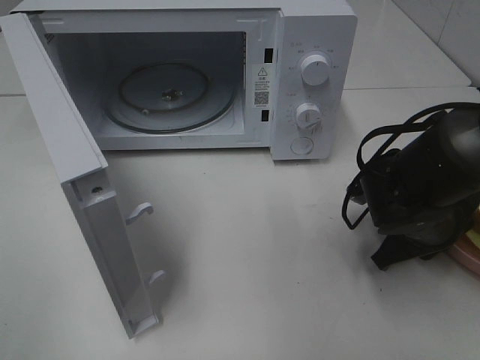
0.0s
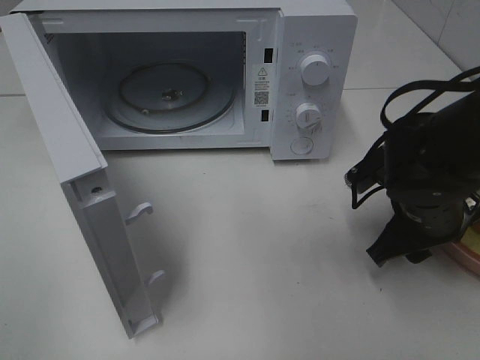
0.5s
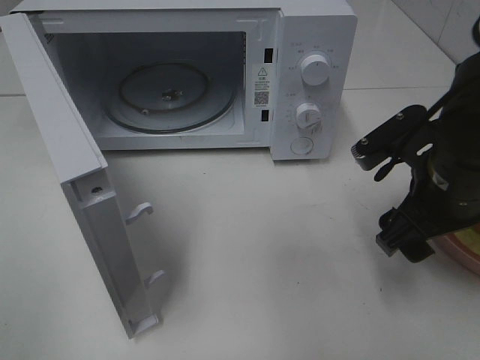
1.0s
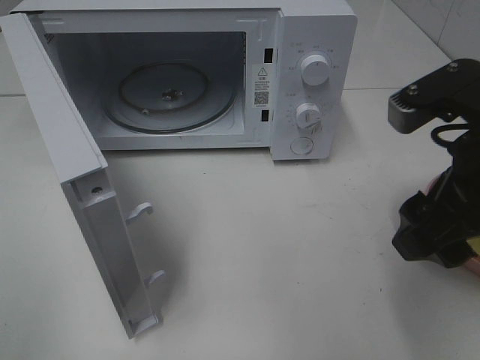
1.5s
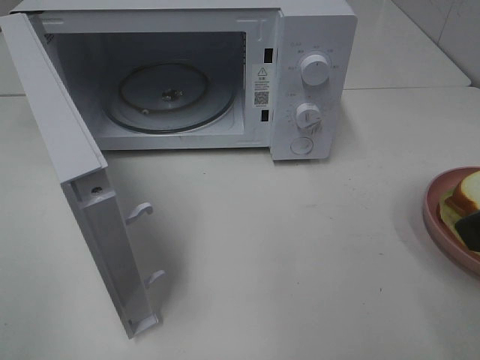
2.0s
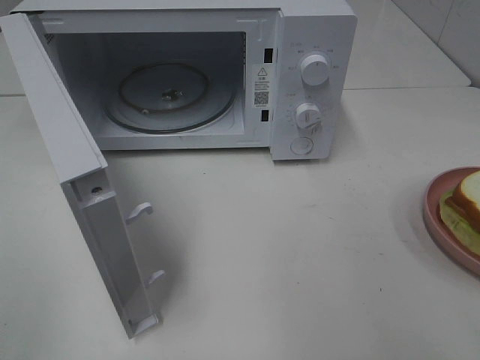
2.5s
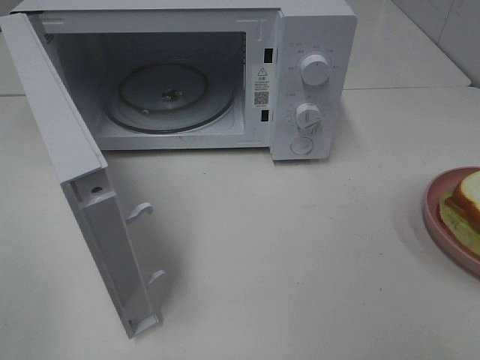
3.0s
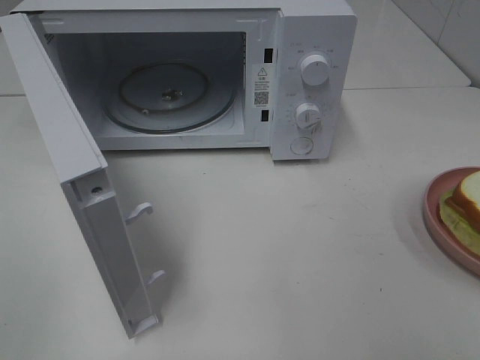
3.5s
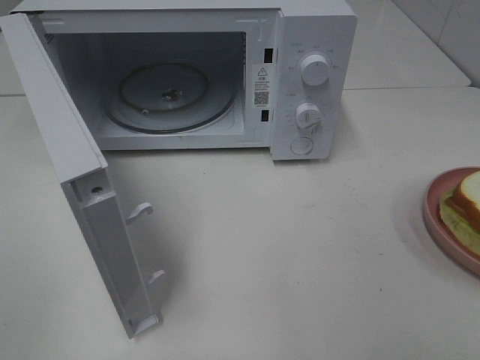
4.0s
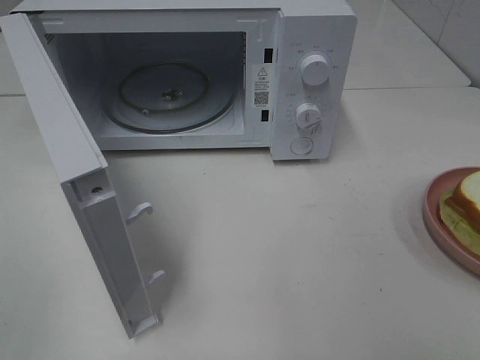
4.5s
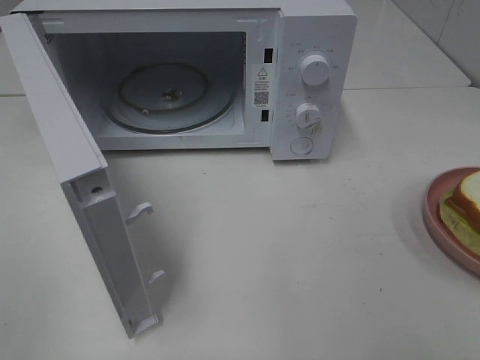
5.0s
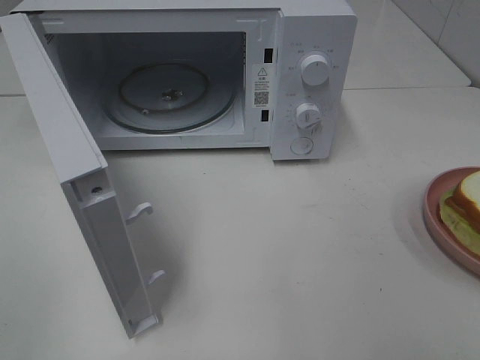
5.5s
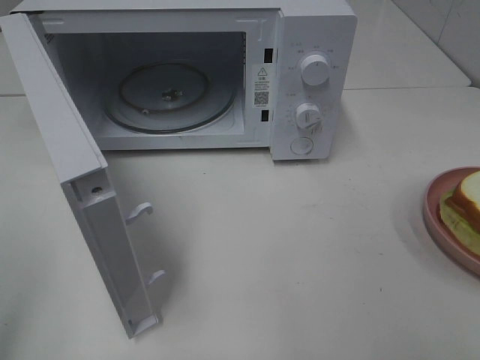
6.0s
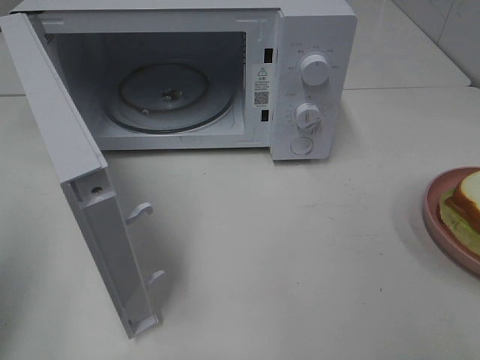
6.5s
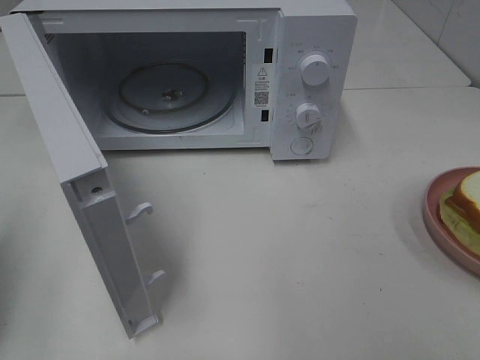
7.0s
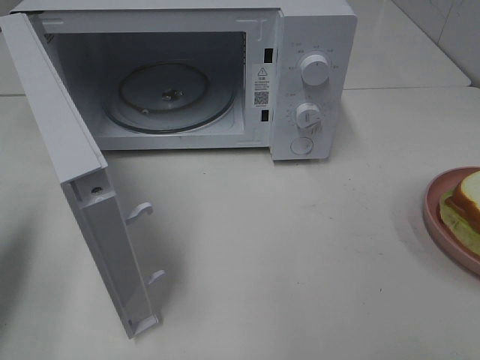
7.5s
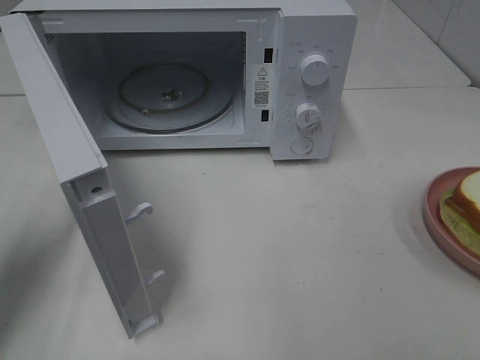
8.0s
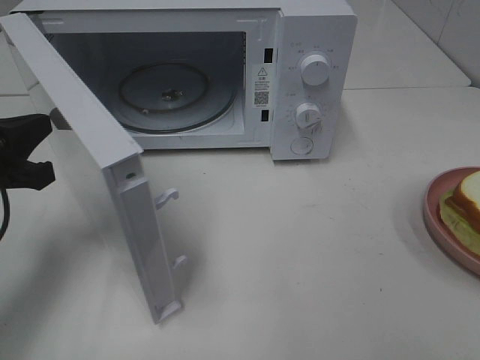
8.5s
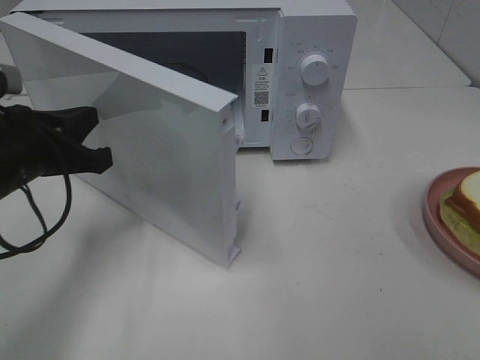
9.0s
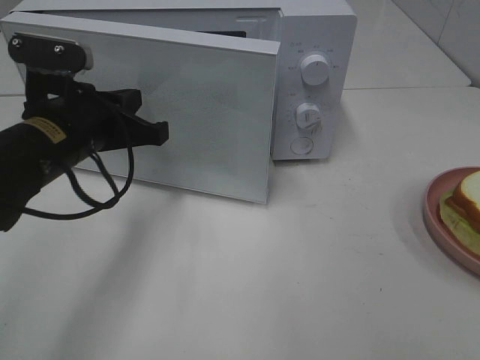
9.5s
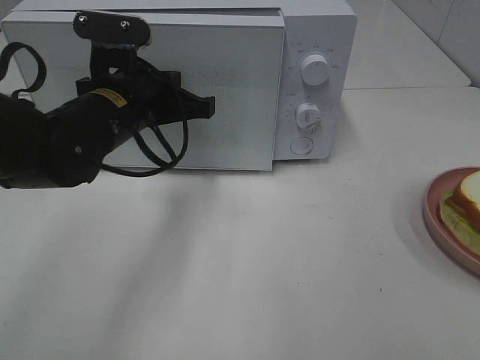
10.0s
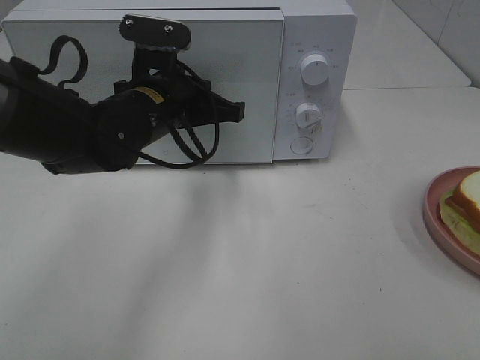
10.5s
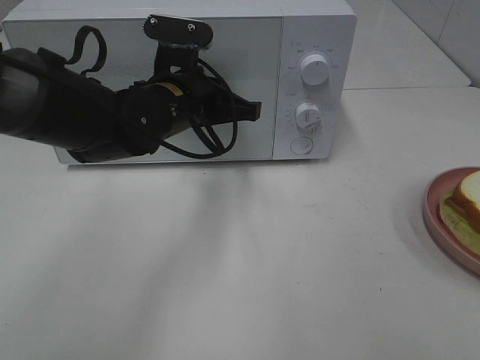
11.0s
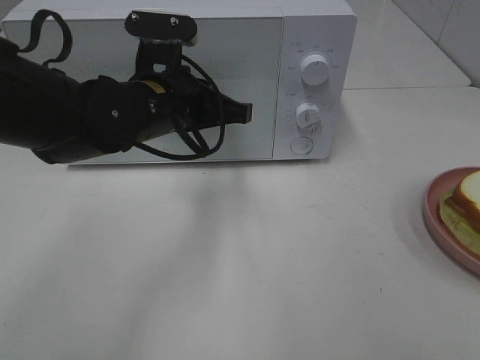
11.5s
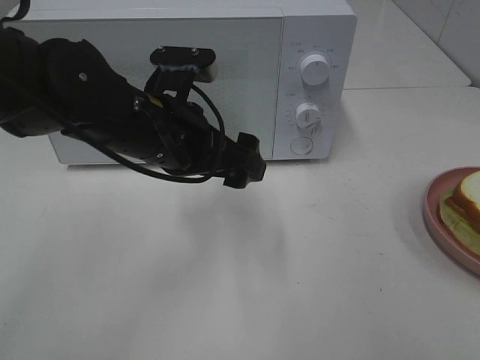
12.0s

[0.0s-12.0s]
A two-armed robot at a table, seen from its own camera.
Task of the whole recording: Heat Sandwich.
Step, 1.5s to 11.5s: Left hand: close the microwave door.
0.0s to 2.0s: The right gripper travels upward and backward by approximately 25 cm, and opens its fingers.
2.0s to 4.0s: The right gripper heads backward and to the right, covering approximately 15 cm.
6.0s to 8.0s: The left gripper travels forward and downward by approximately 20 cm, and closes up.
8.0s to 10.0s: The left gripper is displaced to the right and forward by approximately 20 cm.
10.0s to 12.0s: The left gripper ends up about 5 cm from where it was, and opens up.

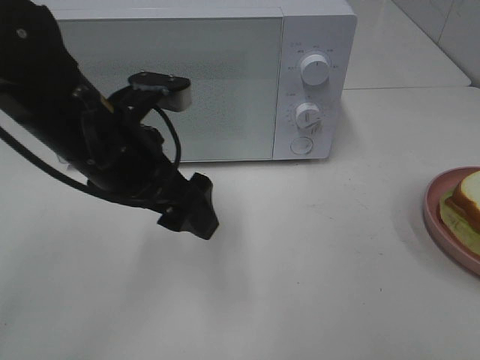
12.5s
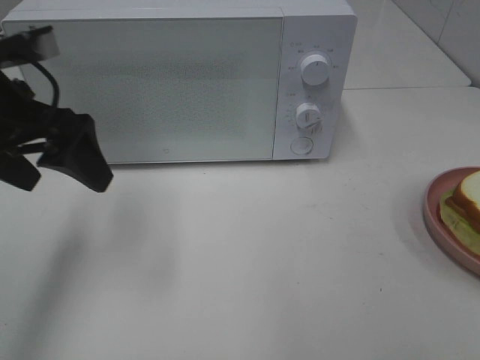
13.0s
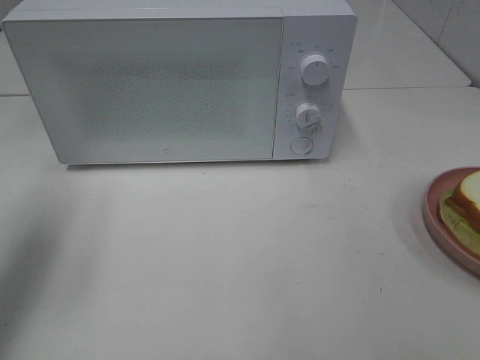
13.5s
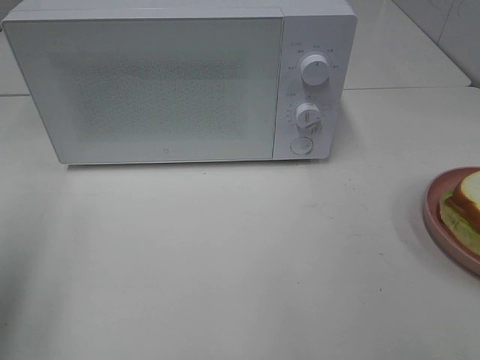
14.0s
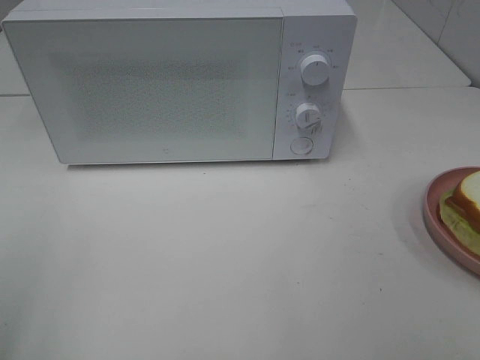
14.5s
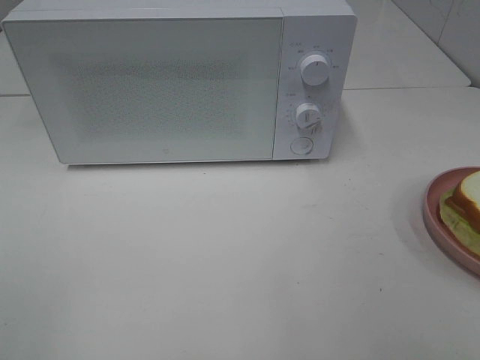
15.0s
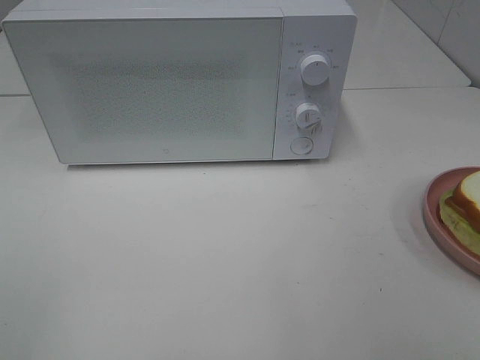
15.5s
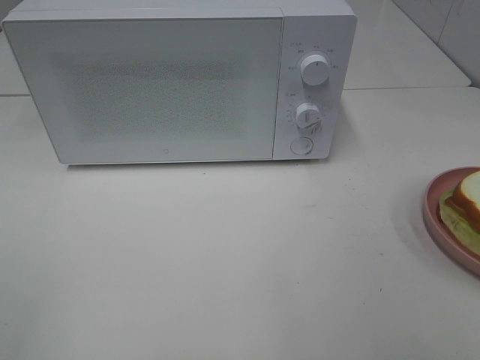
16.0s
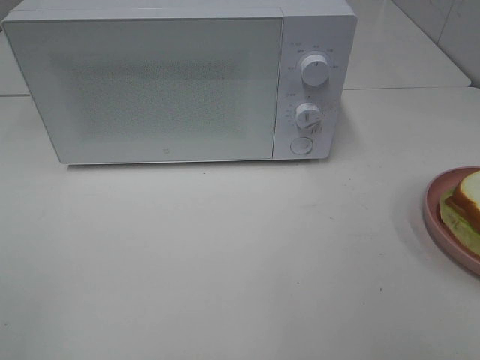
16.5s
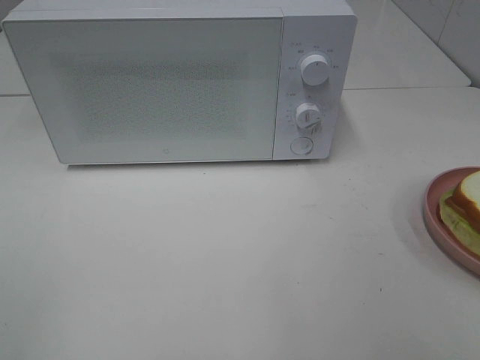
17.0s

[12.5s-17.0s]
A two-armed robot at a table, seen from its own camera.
Task of the whole recording: Heat Sandwich.
12.5s to 14.5s: The left gripper travels backward, to the left and upward by approximately 30 cm.

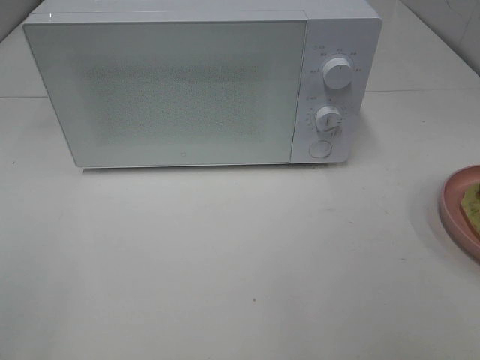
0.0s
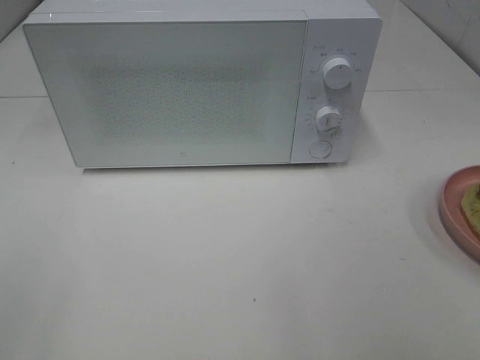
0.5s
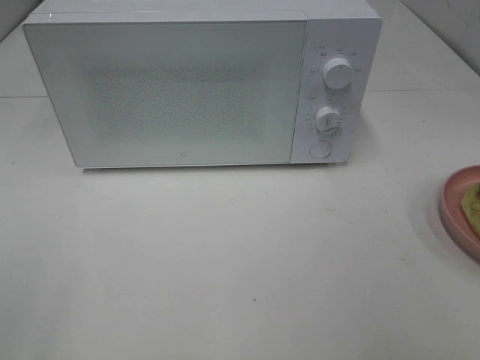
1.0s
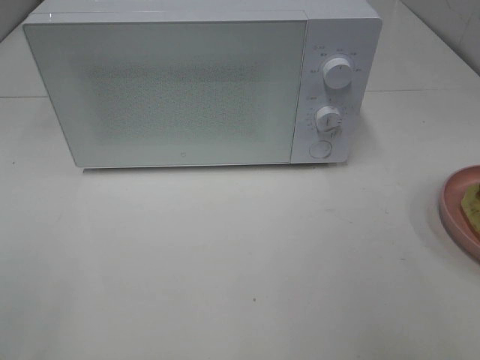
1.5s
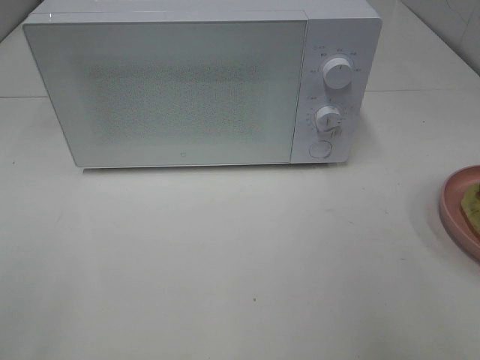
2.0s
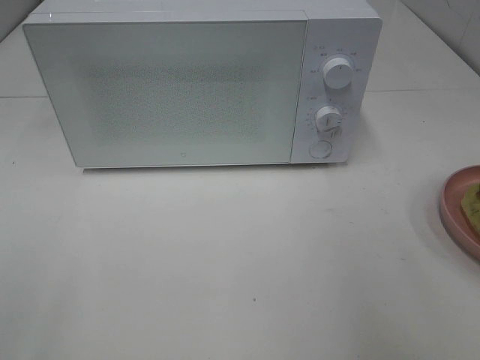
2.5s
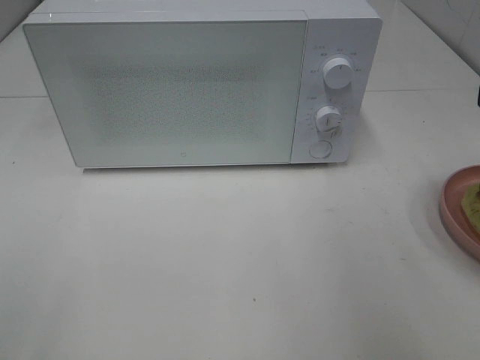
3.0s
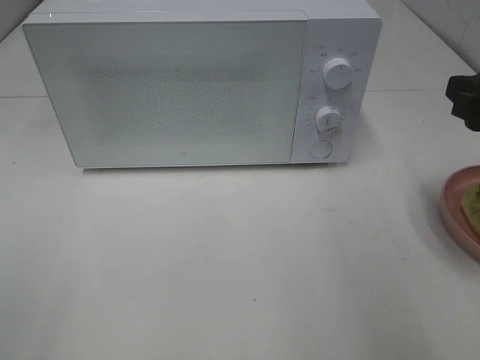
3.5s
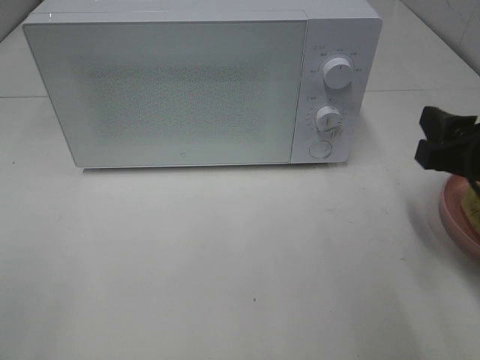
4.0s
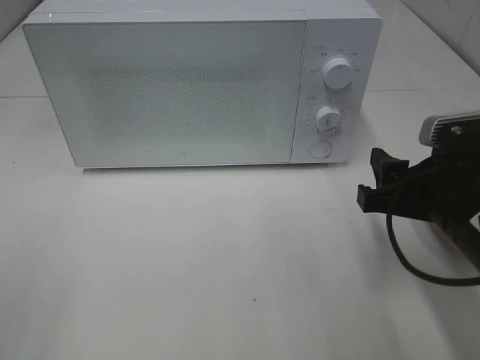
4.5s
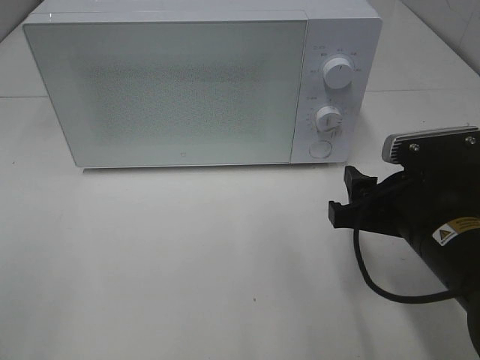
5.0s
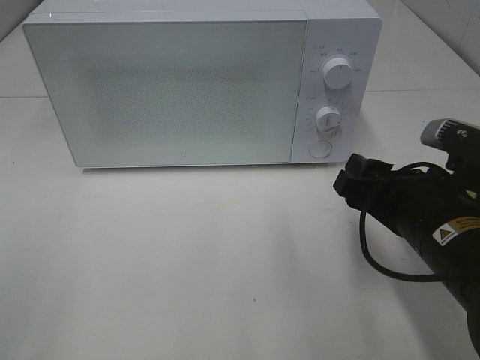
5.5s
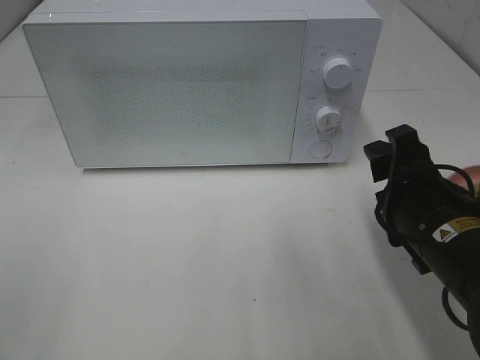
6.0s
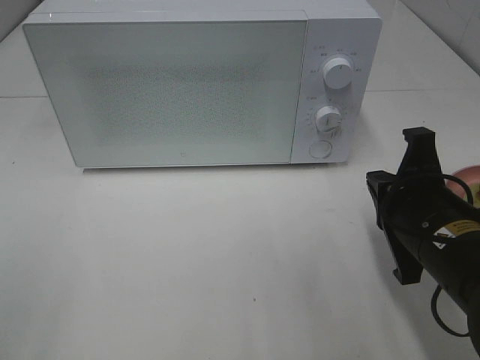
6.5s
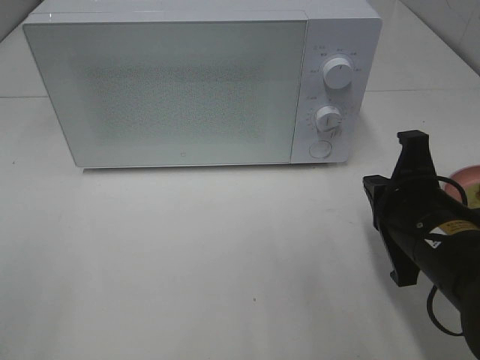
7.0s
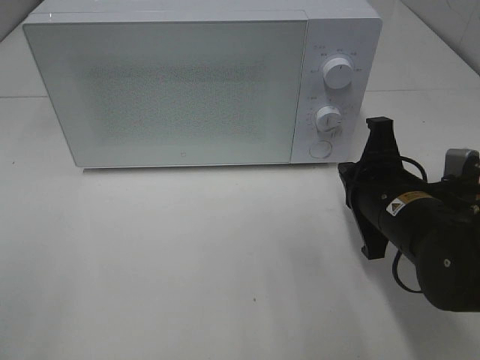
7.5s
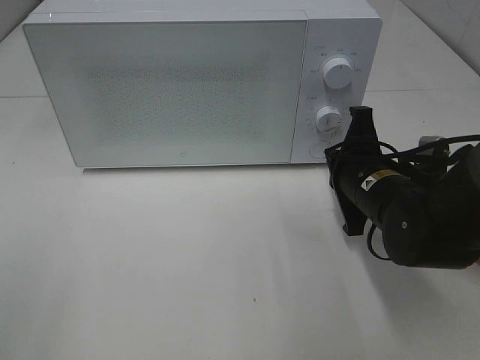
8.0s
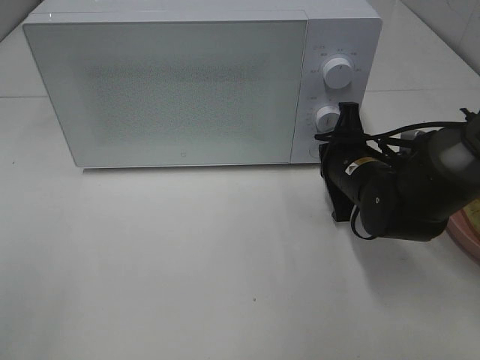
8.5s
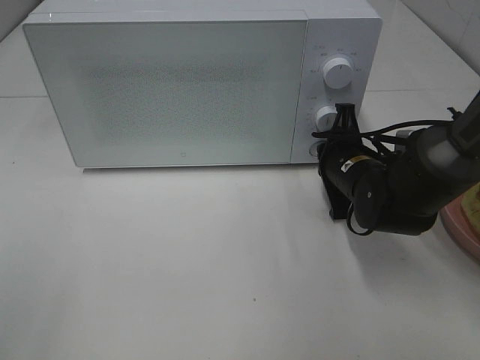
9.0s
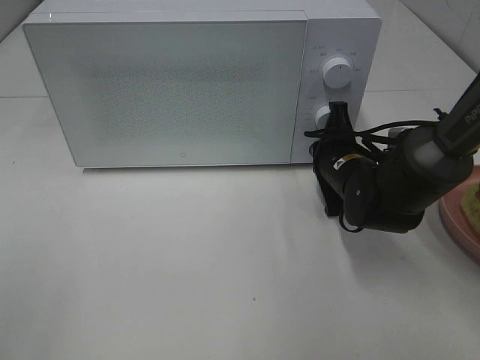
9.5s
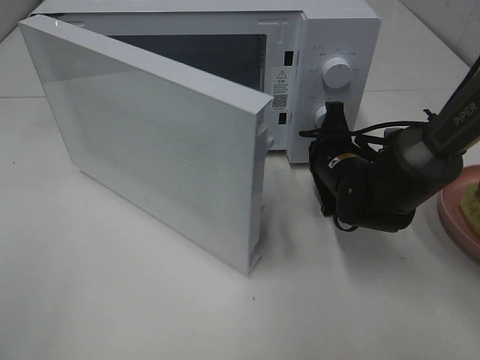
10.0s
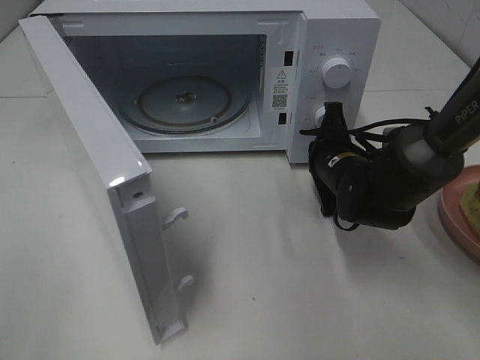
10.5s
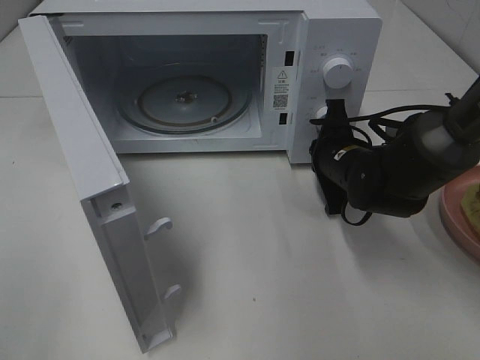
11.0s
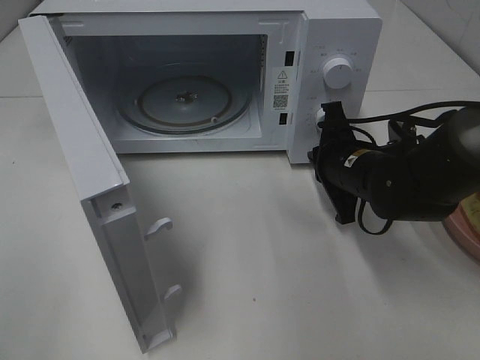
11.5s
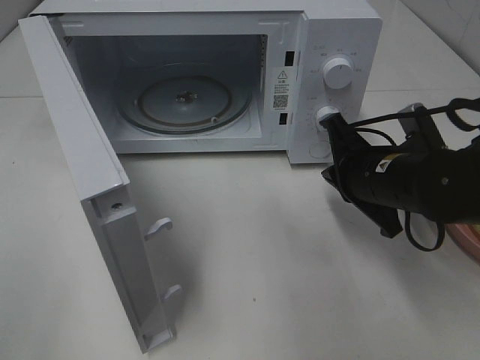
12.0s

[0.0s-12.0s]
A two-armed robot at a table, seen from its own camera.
Task of the whole recording: Heat Sandwich.
Step, 0.0s to 11.0s: Right hand: press the switch.
2.0s to 4.0s: The right gripper goes some 15 cm downward and forward.
4.0s to 6.0s: The right gripper moves to the left and downward, roughly 10 cm.
6.0s to 8.0s: The right gripper moves forward, approximately 10 cm, and closes its fingers.
8.0s to 10.0s: The right gripper goes approximately 5 cm forward.
10.0s to 12.0s: The right gripper travels backward and upward by some 10 cm.
